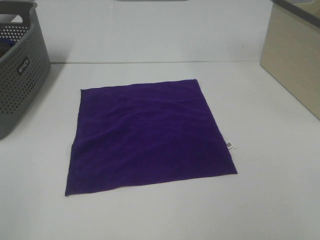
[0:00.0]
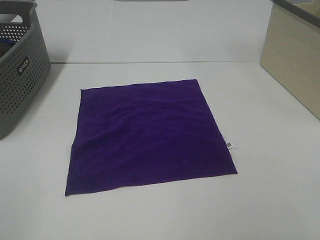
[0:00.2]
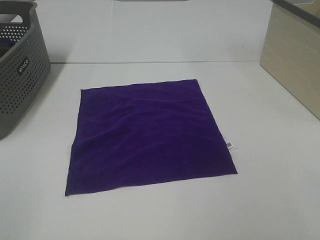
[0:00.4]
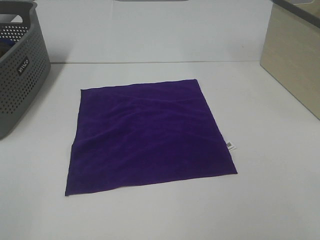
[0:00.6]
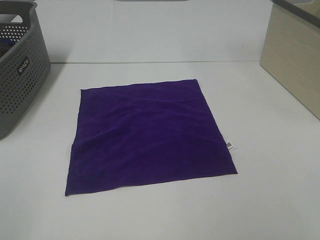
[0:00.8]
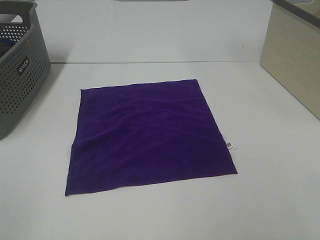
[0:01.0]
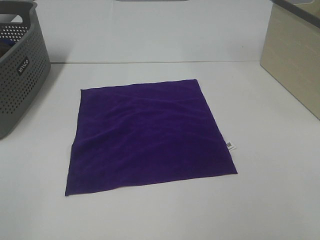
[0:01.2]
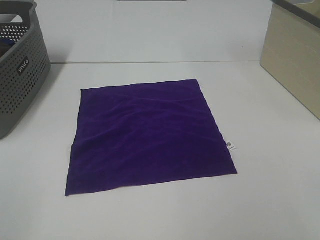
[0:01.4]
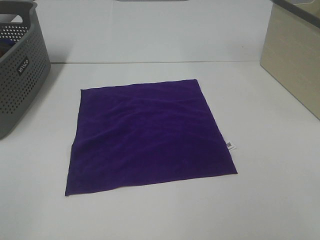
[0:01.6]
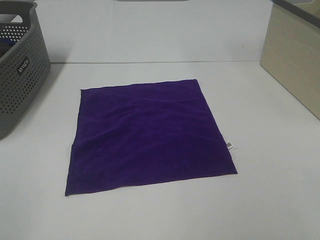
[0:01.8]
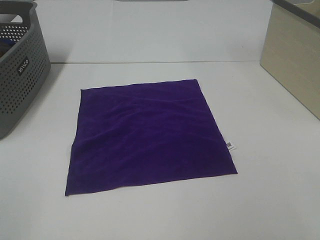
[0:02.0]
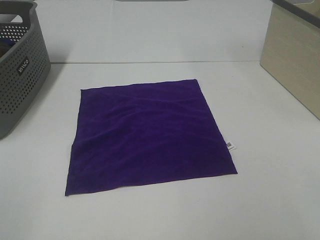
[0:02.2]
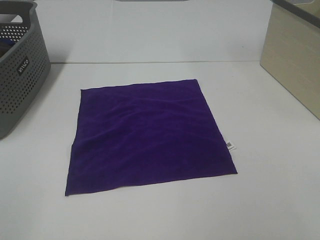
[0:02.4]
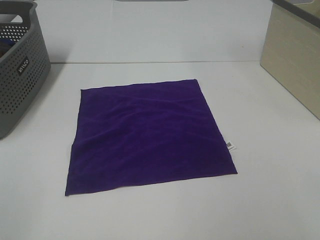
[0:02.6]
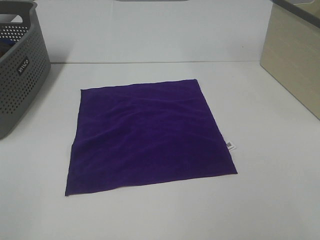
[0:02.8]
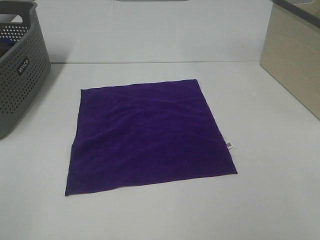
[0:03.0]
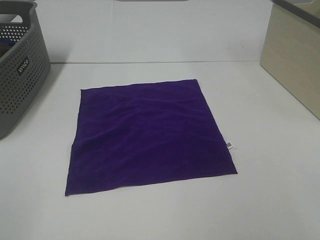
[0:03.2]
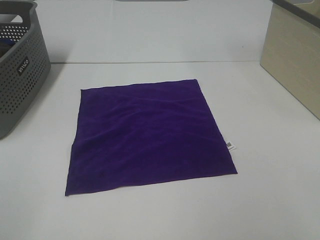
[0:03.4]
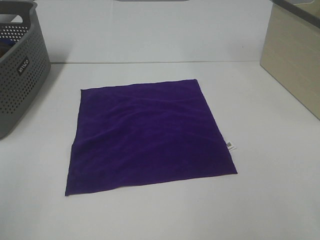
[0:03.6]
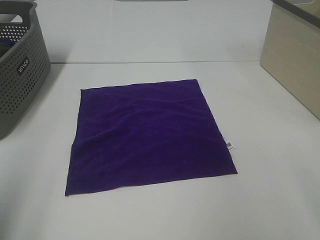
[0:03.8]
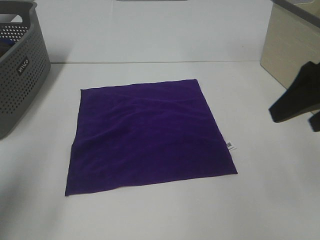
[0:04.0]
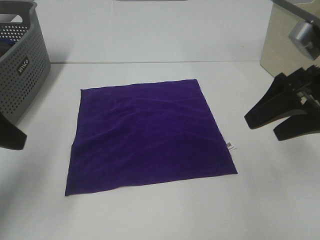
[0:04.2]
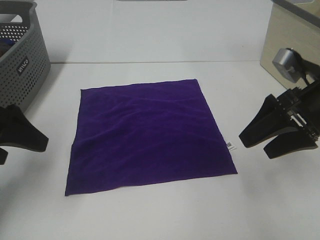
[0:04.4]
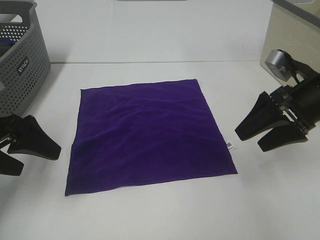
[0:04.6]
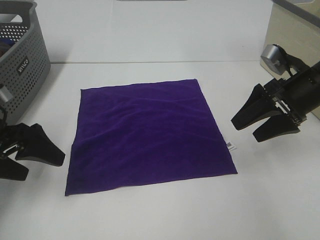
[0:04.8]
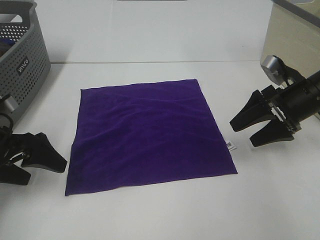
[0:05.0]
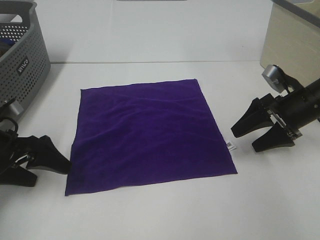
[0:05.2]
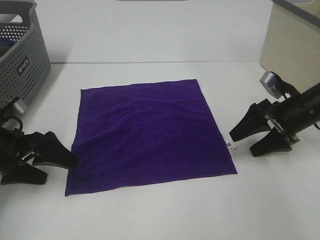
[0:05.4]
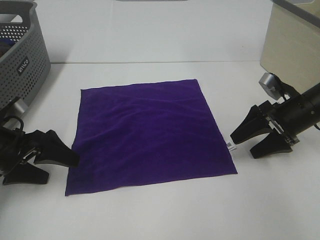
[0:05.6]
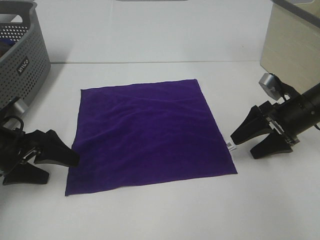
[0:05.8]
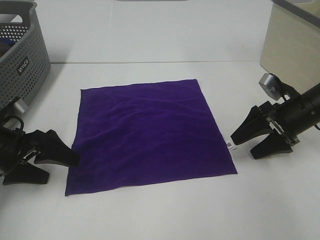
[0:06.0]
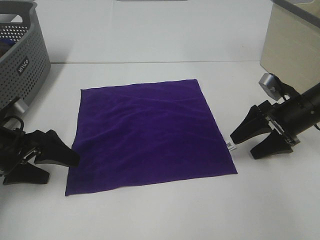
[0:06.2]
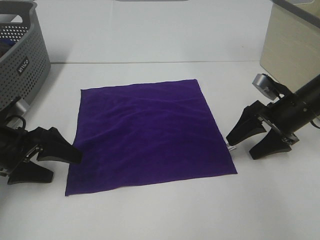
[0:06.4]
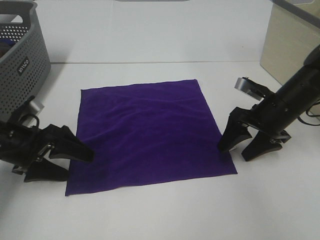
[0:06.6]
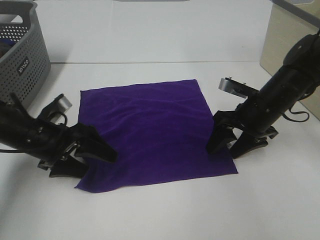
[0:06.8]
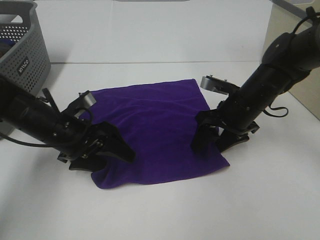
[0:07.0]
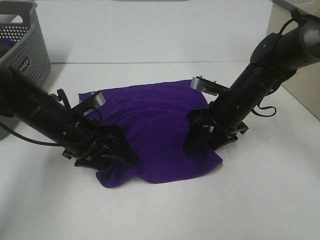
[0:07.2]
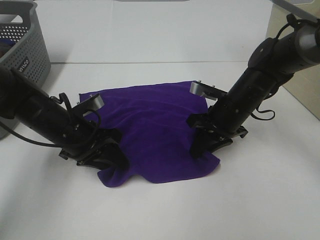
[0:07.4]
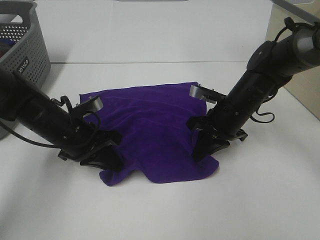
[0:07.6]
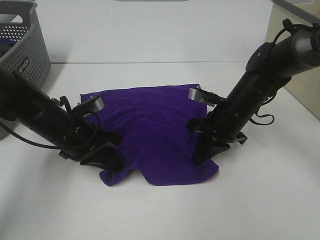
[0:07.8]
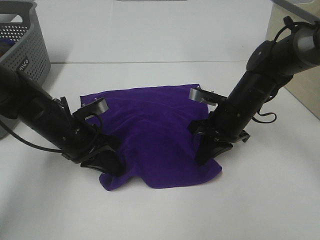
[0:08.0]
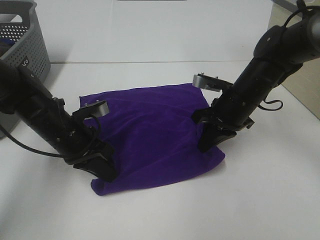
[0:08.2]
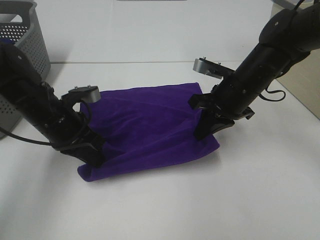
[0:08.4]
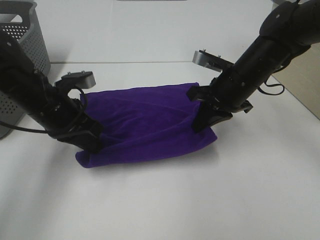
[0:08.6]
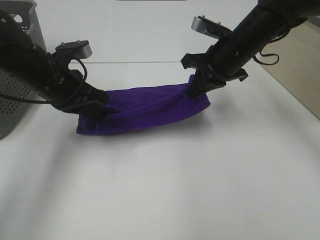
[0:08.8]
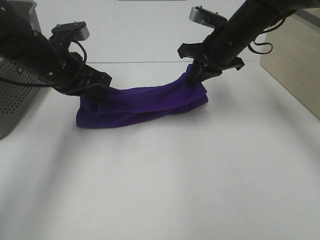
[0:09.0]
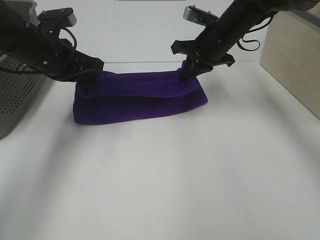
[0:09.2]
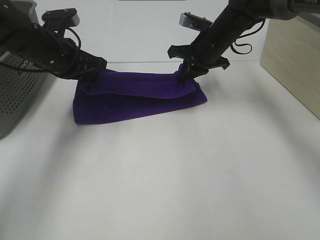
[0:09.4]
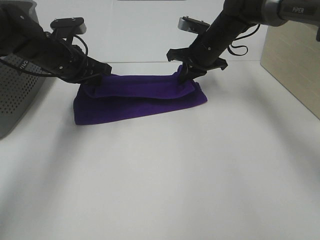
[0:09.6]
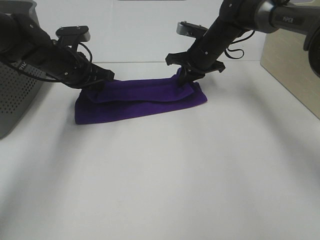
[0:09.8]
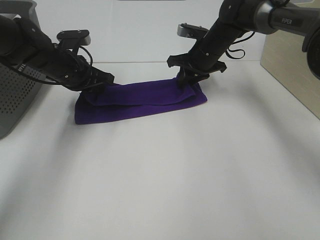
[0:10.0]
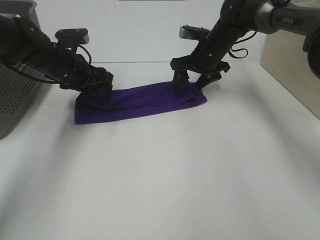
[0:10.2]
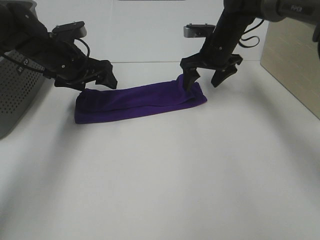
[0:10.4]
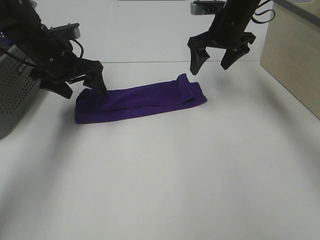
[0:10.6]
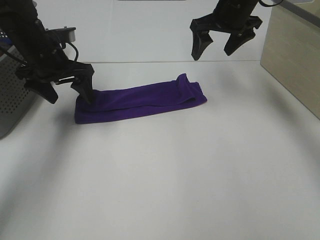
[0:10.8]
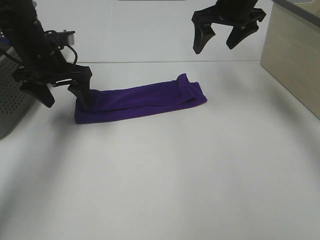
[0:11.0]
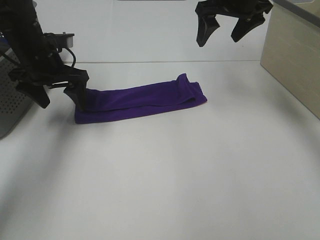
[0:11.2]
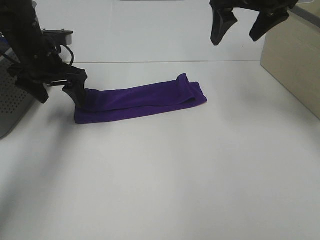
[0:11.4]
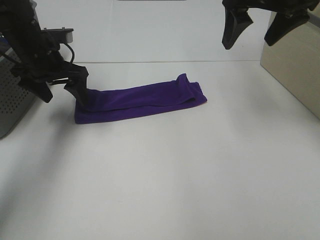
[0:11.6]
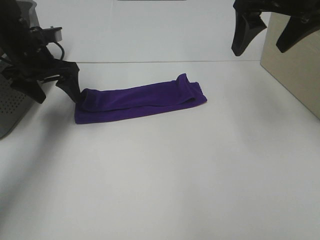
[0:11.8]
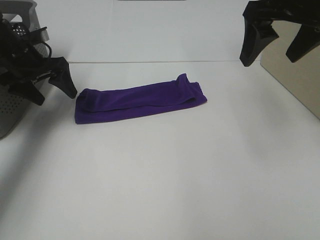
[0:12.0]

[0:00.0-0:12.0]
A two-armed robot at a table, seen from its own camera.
Task of the whole recording: Fold towels.
Step, 0:00.0 to 0:07.8: Left hand: grab the bottom left corner of purple towel.
Step, 0:00.0 to 0:07.8: Right hand: grab the bottom right corner of purple towel.
Step, 0:08.0 to 0:09.8: Left hand: fold the purple towel up.
Step, 0:08.0 to 0:09.8: Right hand: fold the purple towel up.
0:00.0 to 0:03.0: Neither gripper changes place.
0:03.0 to 0:04.4: Both grippers travel together forward, roughly 25 cm.
0:04.4 to 0:06.0: The right gripper travels downward and forward by about 10 cm. Meanwhile the left gripper moves downward, some 10 cm.
0:06.0 to 0:07.6: The right gripper travels to the left by about 15 cm, and closes up; the left gripper is displaced to the right and forward by about 10 cm, and closes its fingers.
0:07.6 to 0:09.0: The two grippers go approximately 15 cm upward and forward.
0:09.0 to 0:10.4: Both grippers move forward, approximately 5 cm. The right gripper opens. Meanwhile the left gripper opens.
0:10.4 to 0:12.0: The left gripper shifts about 10 cm to the left, while the right gripper is displaced backward and upward by approximately 25 cm.

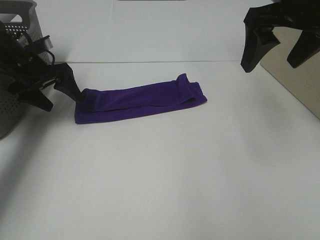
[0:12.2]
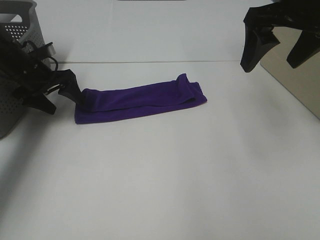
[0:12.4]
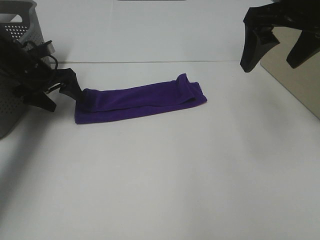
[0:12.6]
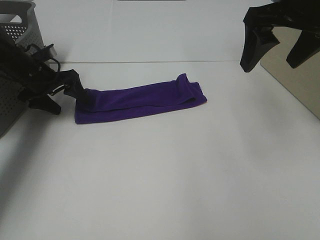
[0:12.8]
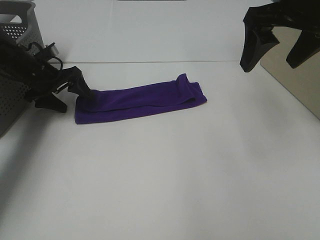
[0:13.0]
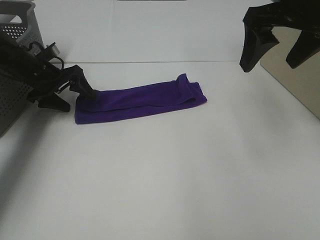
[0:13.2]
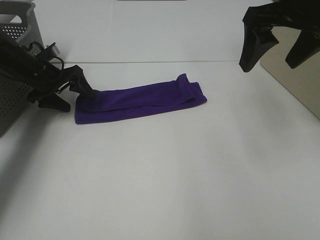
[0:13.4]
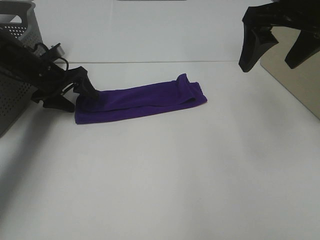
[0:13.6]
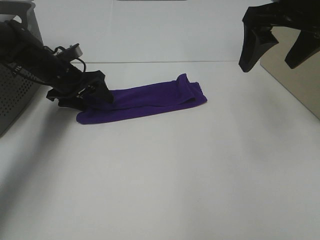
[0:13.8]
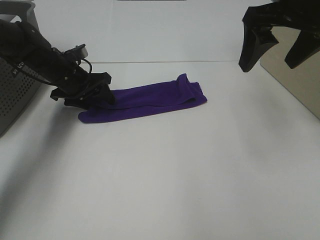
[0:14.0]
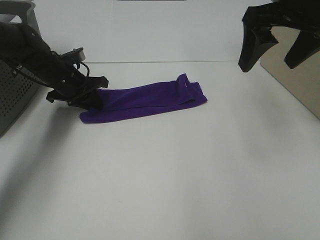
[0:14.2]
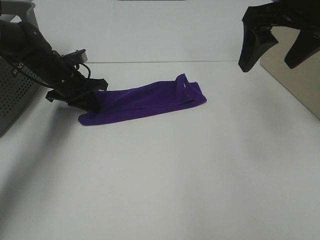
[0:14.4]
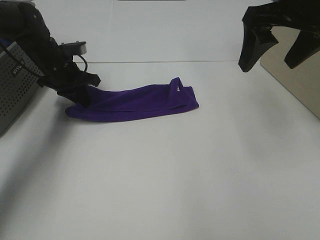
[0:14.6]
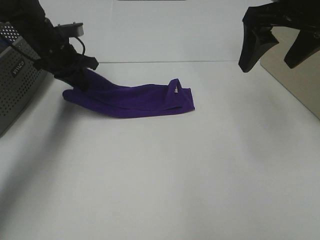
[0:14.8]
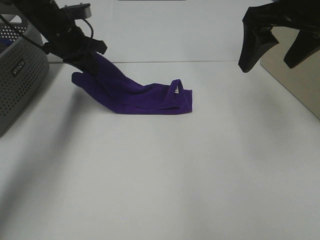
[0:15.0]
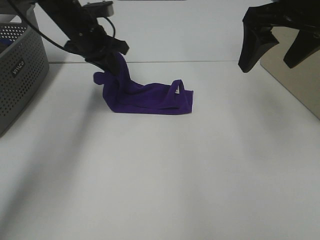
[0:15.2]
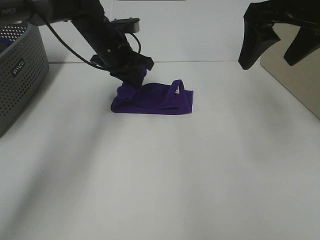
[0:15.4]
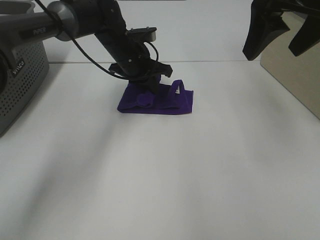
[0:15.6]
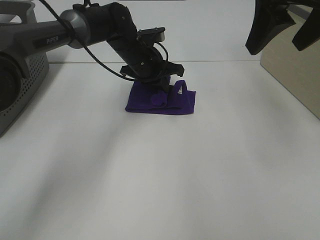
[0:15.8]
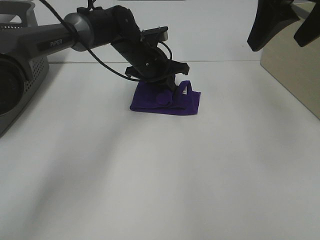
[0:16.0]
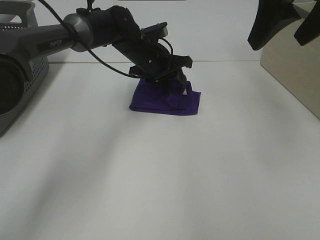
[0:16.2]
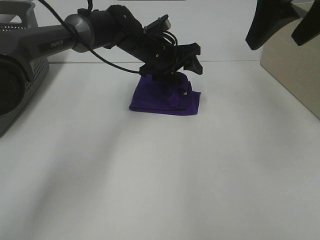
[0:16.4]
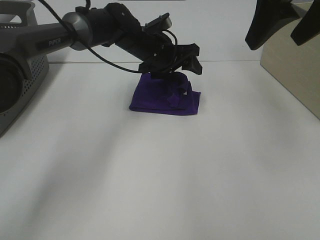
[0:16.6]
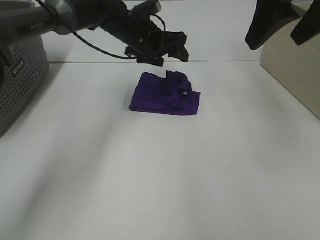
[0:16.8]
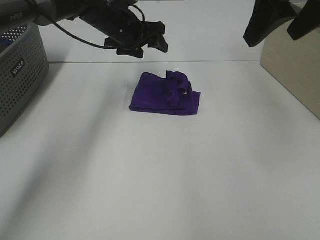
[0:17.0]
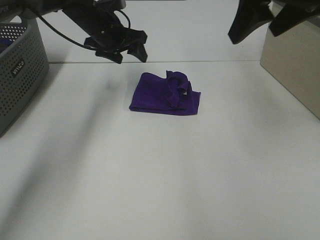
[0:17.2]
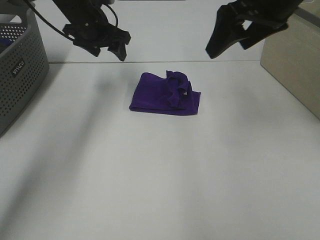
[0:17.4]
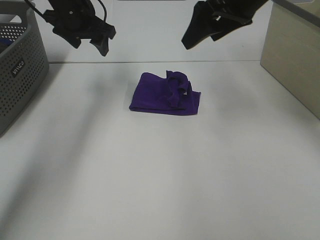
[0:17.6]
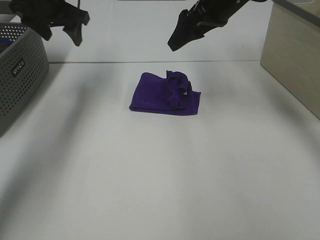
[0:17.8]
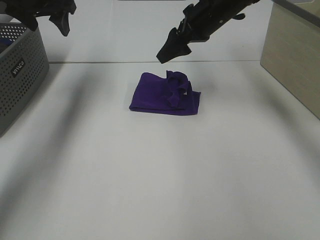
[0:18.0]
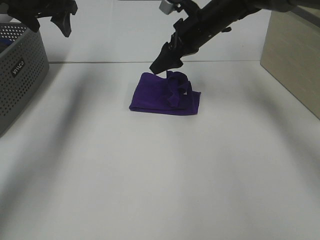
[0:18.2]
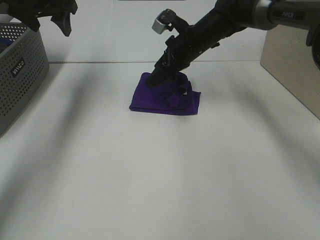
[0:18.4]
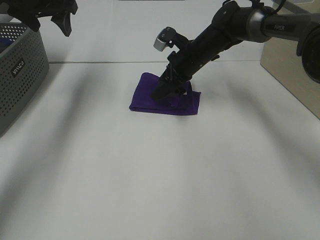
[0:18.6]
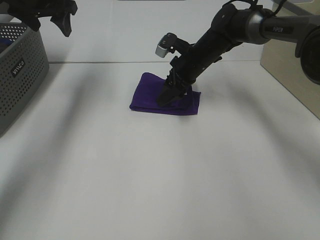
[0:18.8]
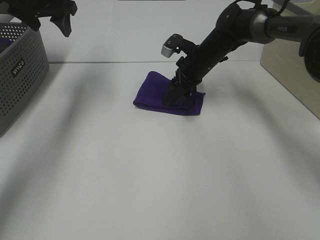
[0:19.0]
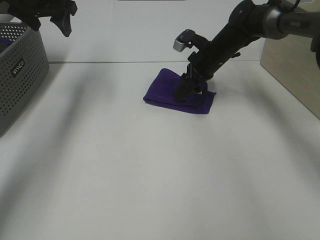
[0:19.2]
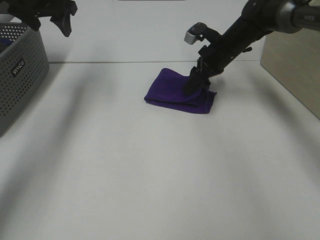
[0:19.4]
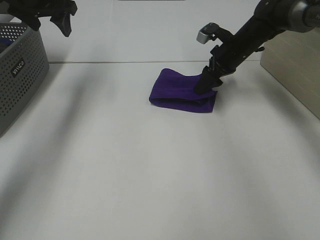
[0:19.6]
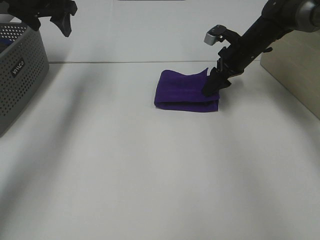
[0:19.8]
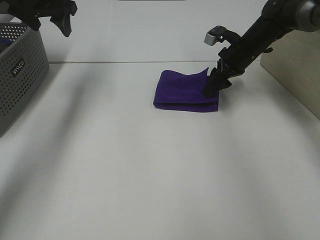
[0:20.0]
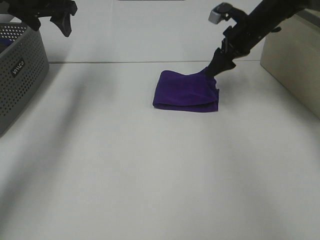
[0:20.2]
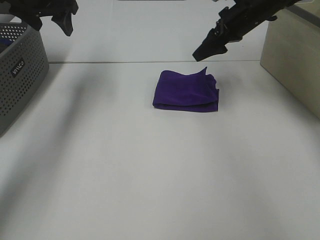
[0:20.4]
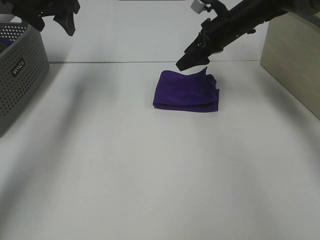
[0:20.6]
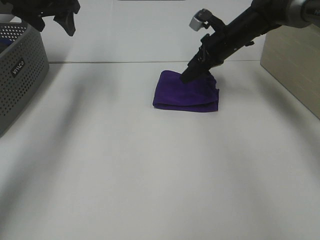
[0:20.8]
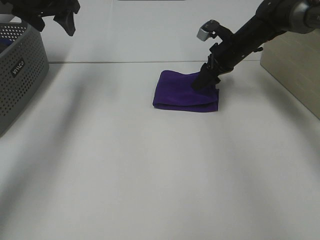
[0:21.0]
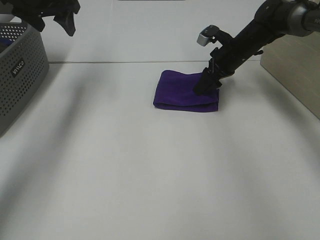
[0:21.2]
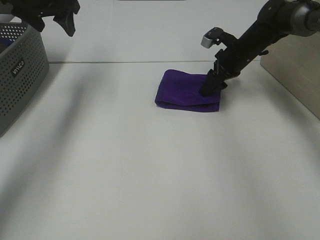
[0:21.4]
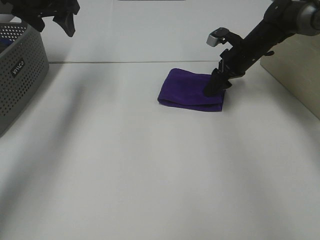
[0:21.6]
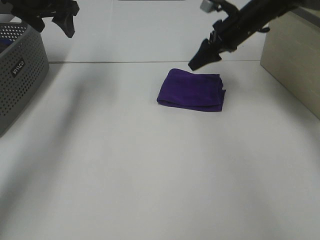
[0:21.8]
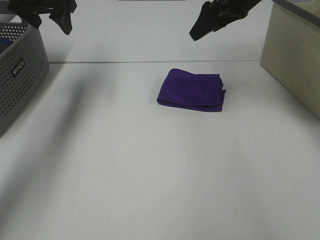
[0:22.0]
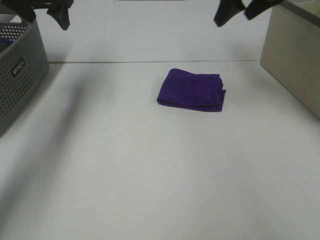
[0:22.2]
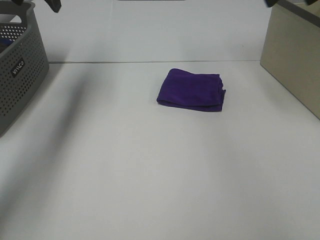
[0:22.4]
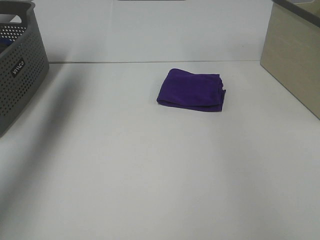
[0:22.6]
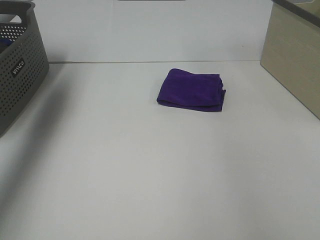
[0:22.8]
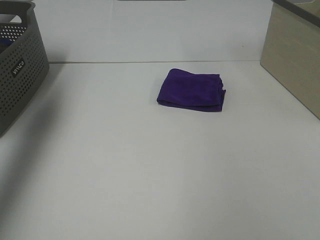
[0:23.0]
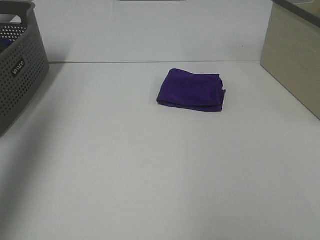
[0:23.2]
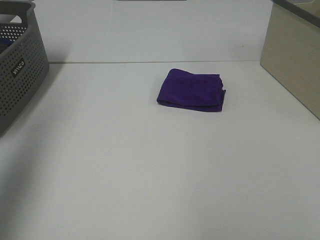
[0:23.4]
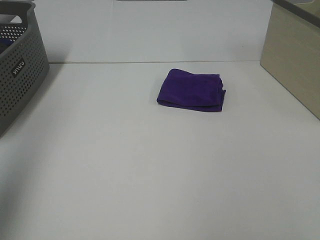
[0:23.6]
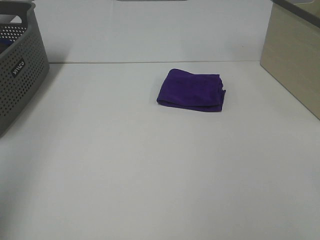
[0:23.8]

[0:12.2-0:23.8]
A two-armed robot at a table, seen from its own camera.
Task of the whole recording: Fold towels.
Step, 0:12.2 to 0:16.0: Left hand: fold the purple towel from left to right.
Step, 0:16.2 to 0:21.6: Right hand: adjust the purple towel.
0:12.2 to 0:13.6: The left gripper ends up roughly 5 cm from where it was.
0:13.6 to 0:15.0: The left gripper moves upward and to the right, some 10 cm, and closes up.
0:15.0 to 0:16.6: The left gripper travels to the right by about 15 cm, and opens. Meanwhile the right gripper changes place by roughly 5 cm.
0:16.6 to 0:18.0: The right gripper moves forward, downward and to the left, about 25 cm; the left gripper heads to the left and upward, covering approximately 25 cm.
0:18.0 to 0:19.4: The right gripper goes roughly 10 cm downward and to the right.
0:19.4 to 0:21.0: The right gripper moves approximately 10 cm upward and comes back.
0:21.0 to 0:22.4: The left gripper shifts approximately 5 cm upward, while the right gripper shifts some 25 cm upward and to the right.
0:22.4 to 0:23.8: The left gripper travels backward by roughly 35 cm.
